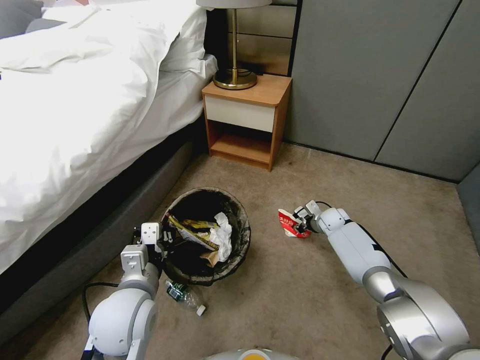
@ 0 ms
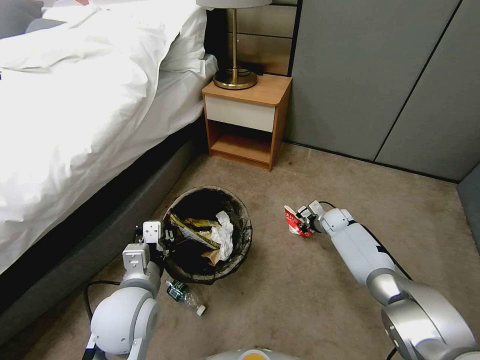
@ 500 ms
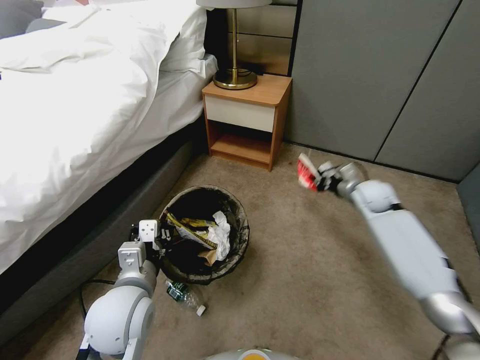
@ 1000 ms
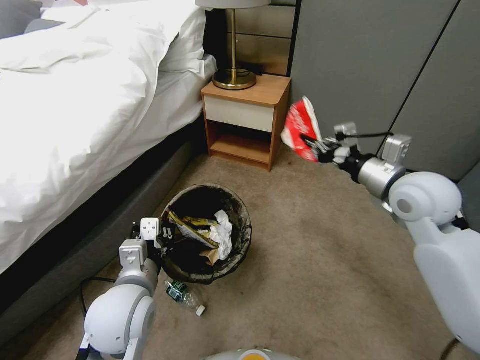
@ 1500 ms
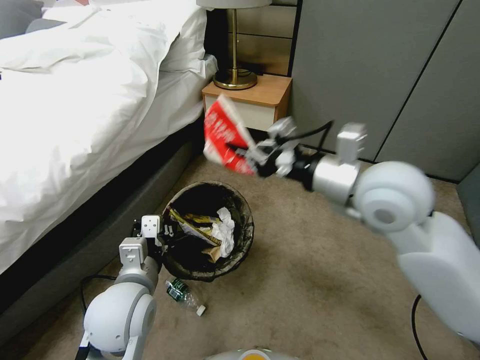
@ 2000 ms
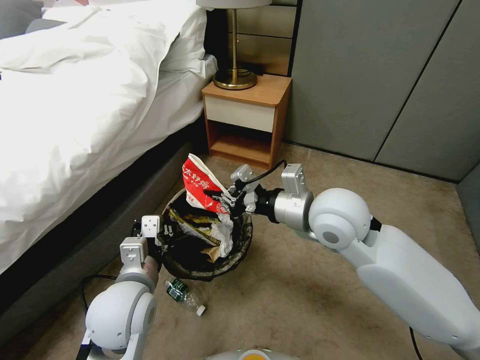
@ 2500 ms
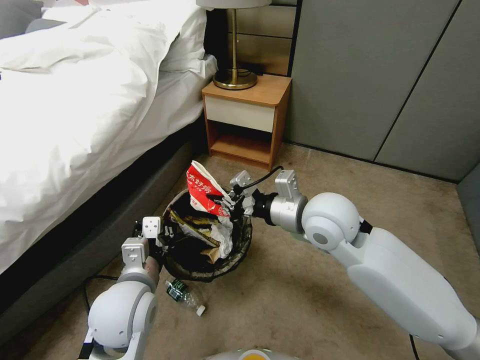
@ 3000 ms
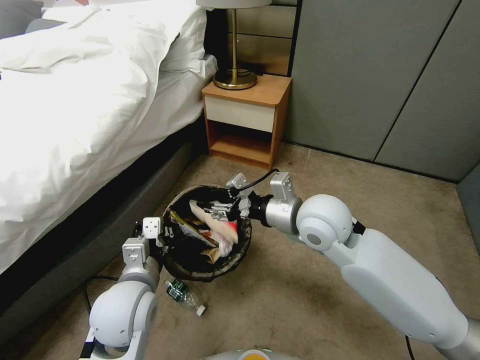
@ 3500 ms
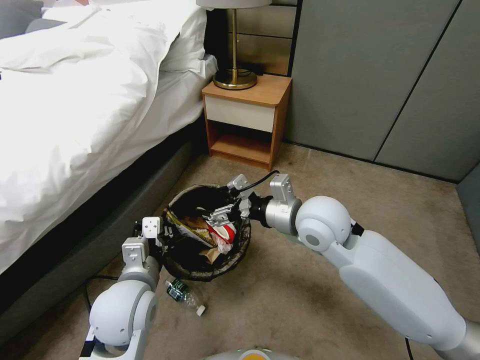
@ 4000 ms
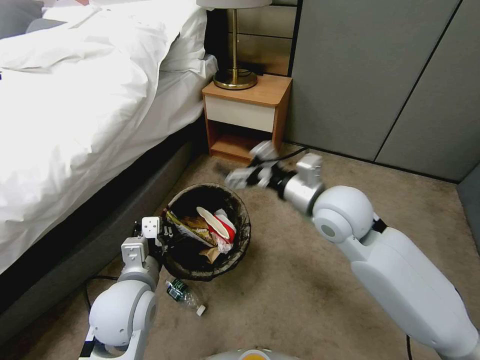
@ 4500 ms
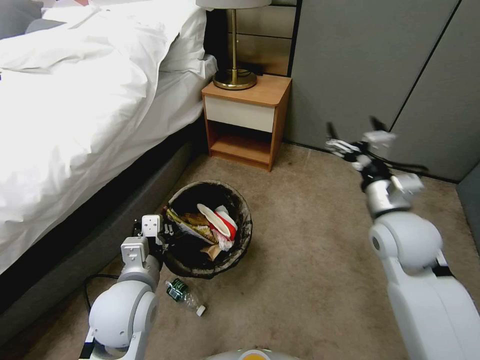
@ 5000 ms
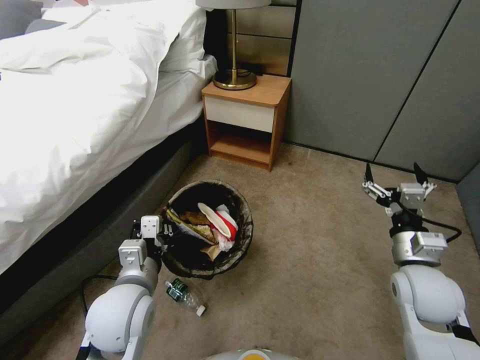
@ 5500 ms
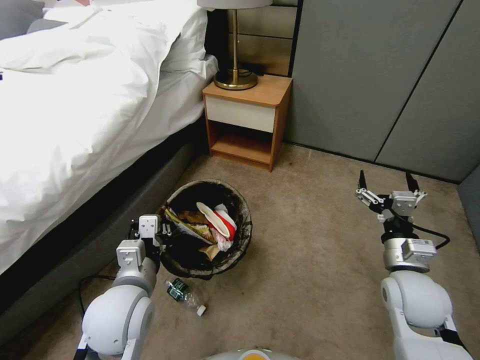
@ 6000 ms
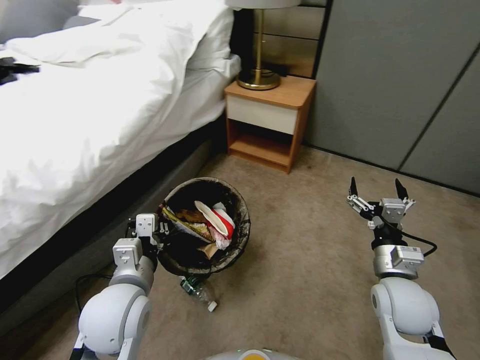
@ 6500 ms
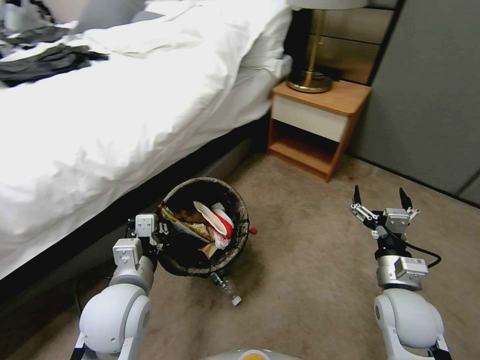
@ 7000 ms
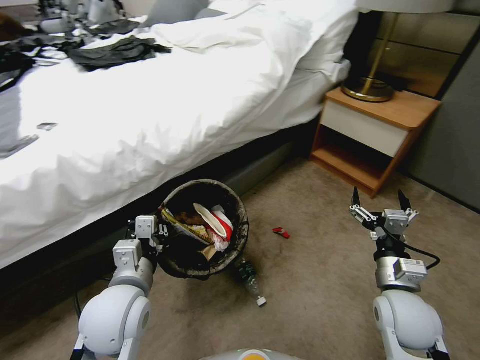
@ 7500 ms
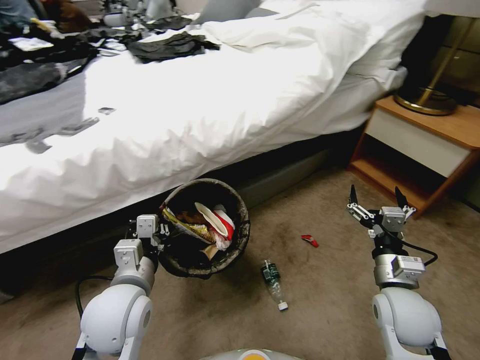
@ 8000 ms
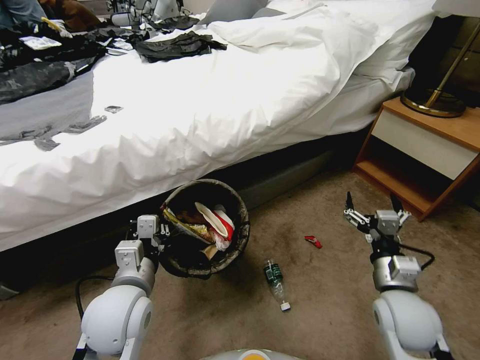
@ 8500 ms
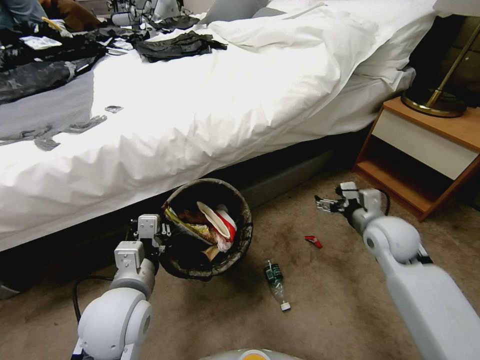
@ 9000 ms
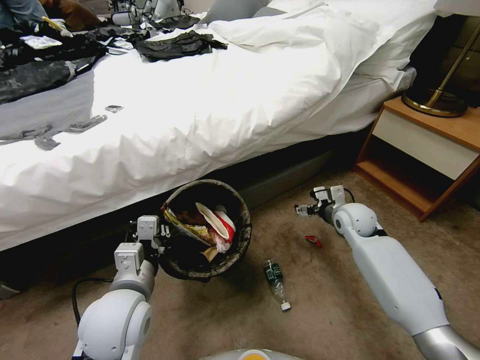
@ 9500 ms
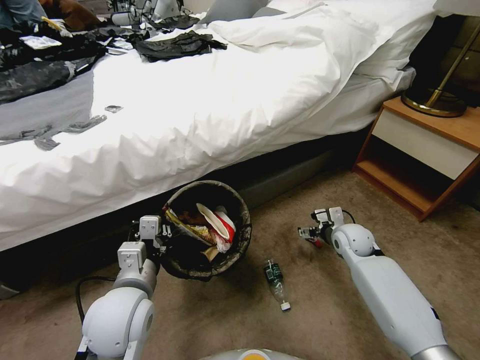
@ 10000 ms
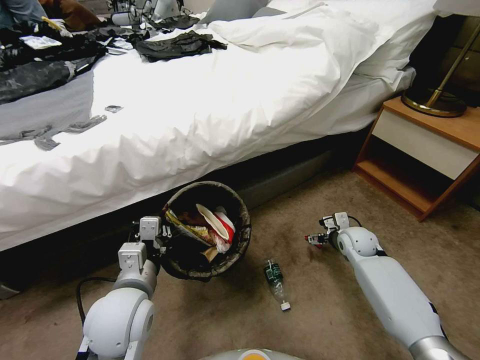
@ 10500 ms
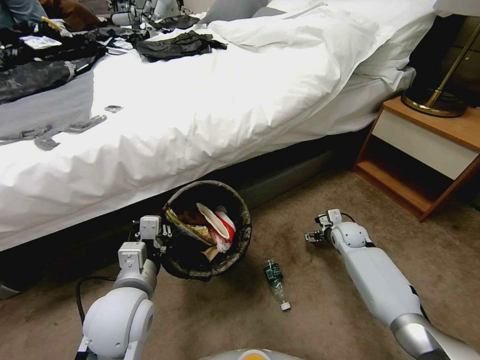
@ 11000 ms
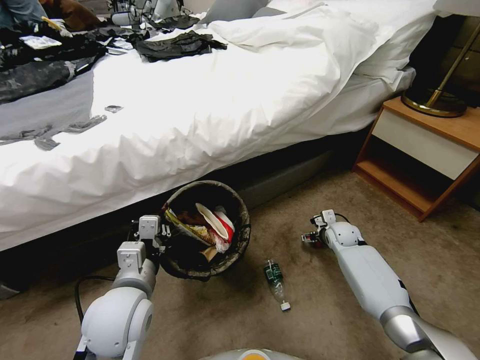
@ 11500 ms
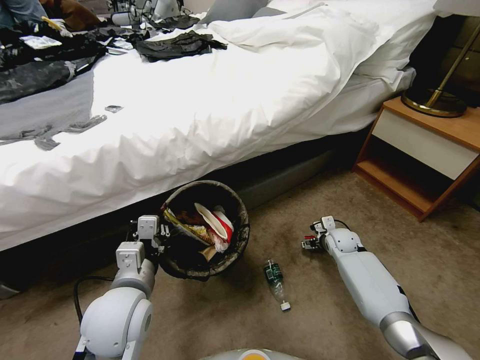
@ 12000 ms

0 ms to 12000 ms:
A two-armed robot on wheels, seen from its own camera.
Task of the whole recording: Pick up the trash bin, then pick up the garbage from the floor and place it into the trash bin.
0 ms to 2000 ms: The right gripper shifts some 50 cm upward and backward.
2000 ms to 4000 ms: The right gripper moves downward and to the left, approximately 15 cm, and opens its fingers.
4000 ms to 6000 ms: The right gripper heads to the right, downward and backward, covering roughly 25 cm.
8000 ms to 10000 ms: The right gripper heads forward, covering roughly 20 cm.
10000 ms to 12000 ms: The right gripper shifts about 10 cm downward.

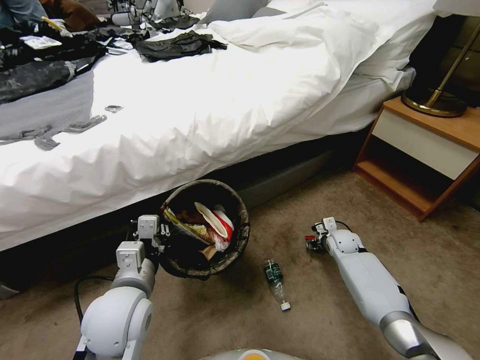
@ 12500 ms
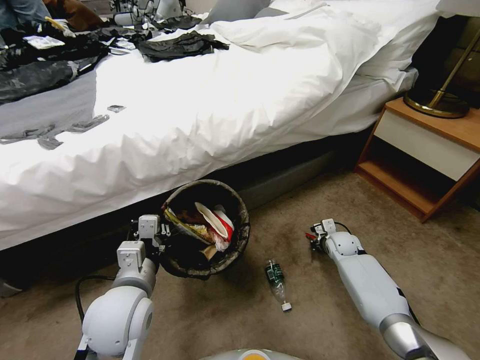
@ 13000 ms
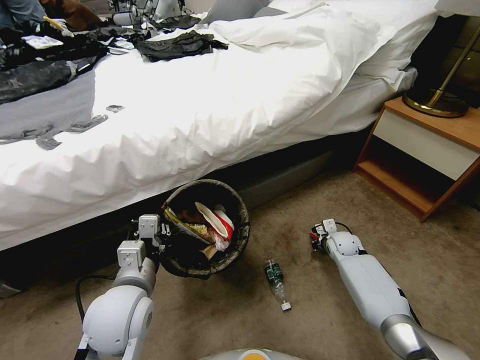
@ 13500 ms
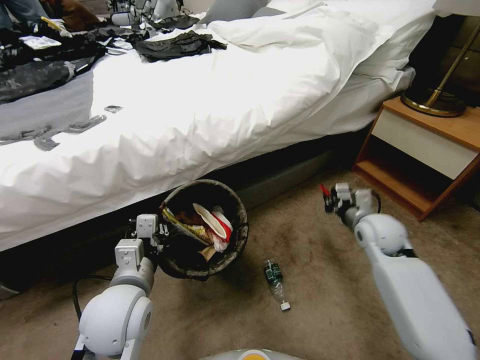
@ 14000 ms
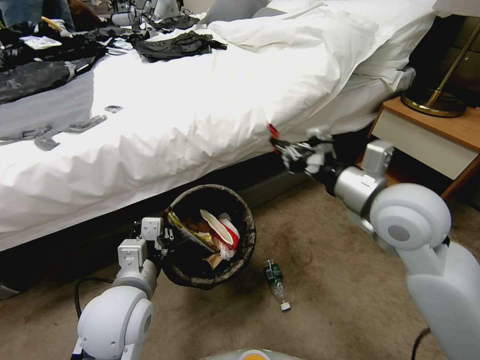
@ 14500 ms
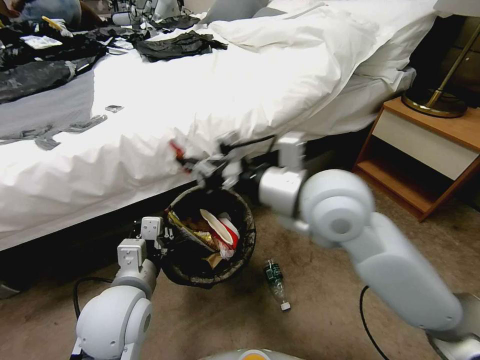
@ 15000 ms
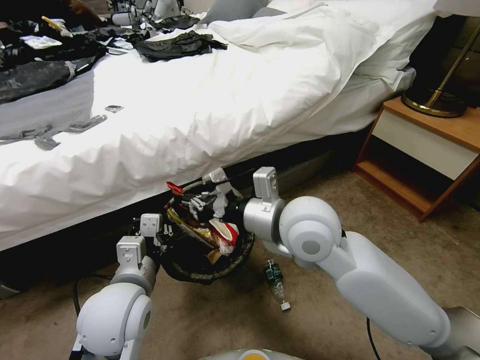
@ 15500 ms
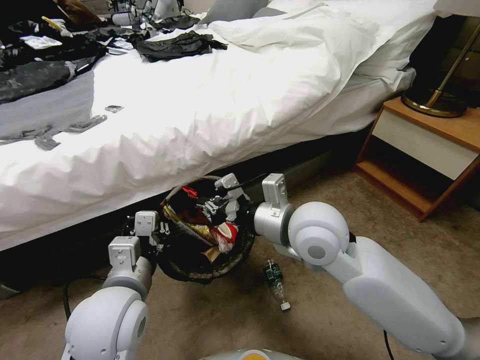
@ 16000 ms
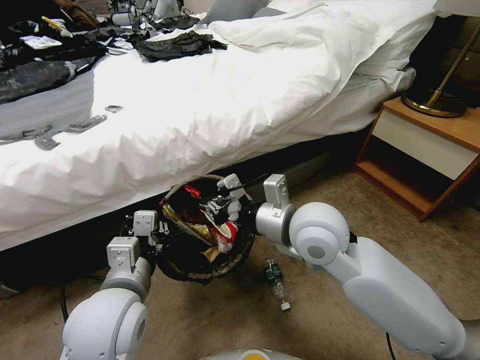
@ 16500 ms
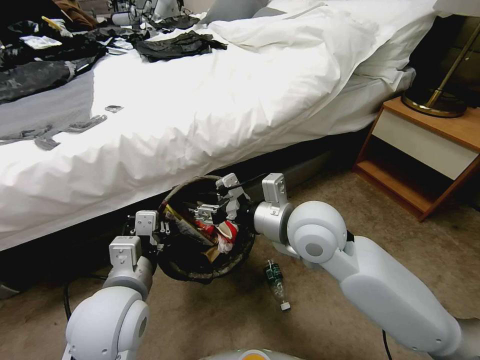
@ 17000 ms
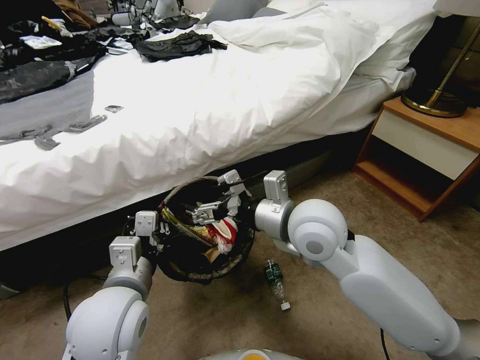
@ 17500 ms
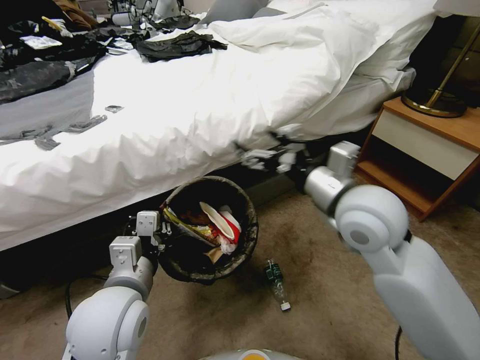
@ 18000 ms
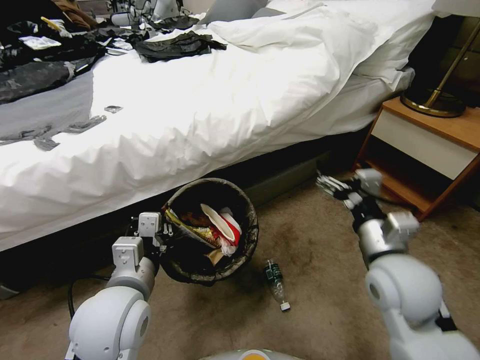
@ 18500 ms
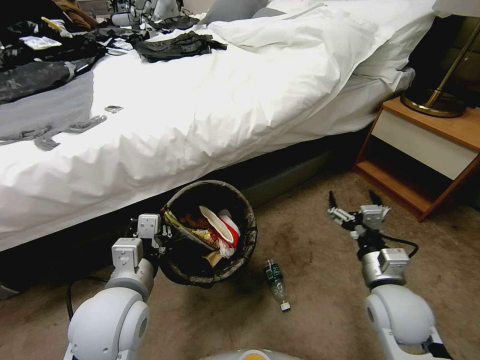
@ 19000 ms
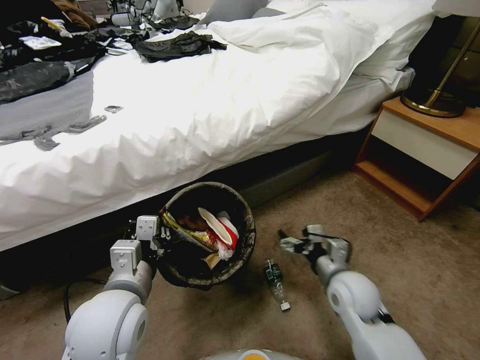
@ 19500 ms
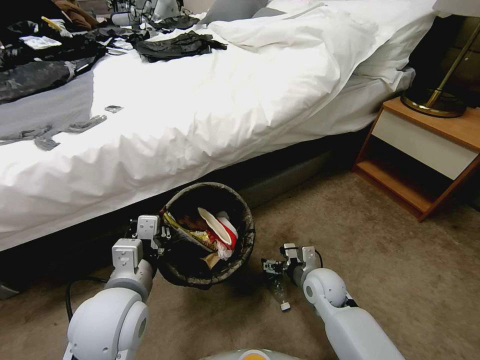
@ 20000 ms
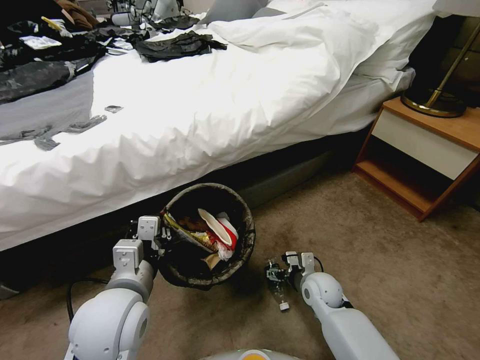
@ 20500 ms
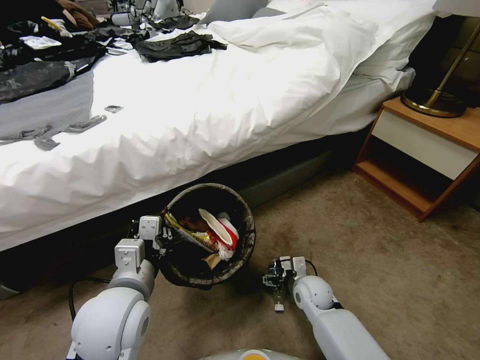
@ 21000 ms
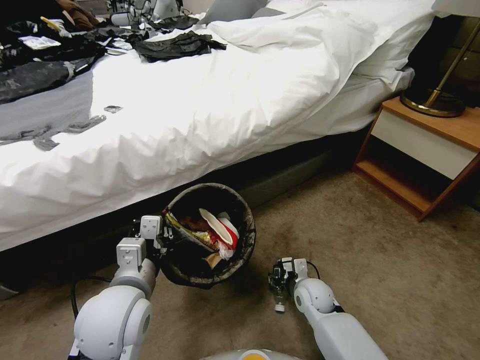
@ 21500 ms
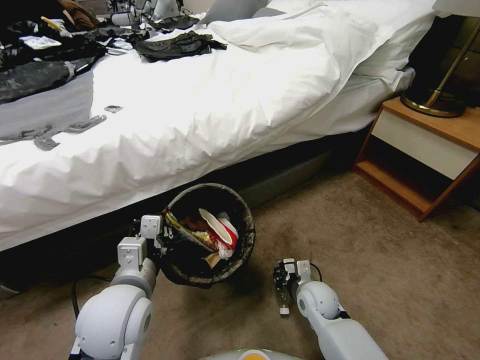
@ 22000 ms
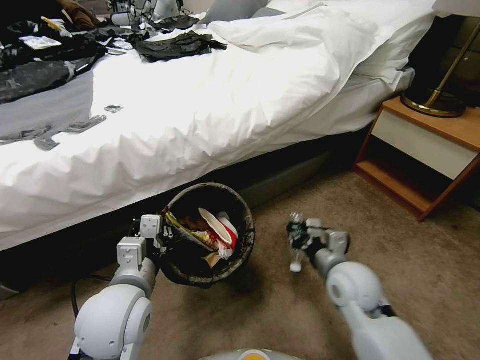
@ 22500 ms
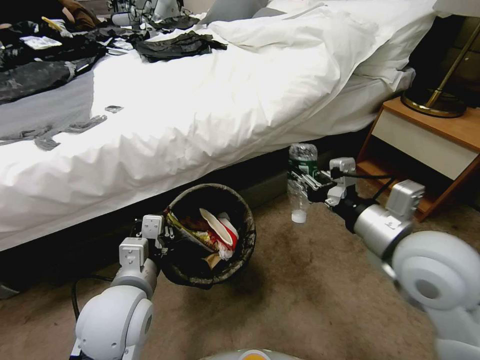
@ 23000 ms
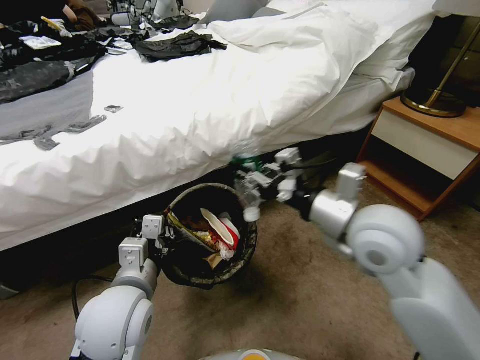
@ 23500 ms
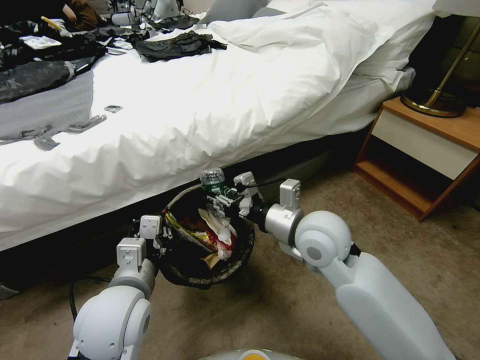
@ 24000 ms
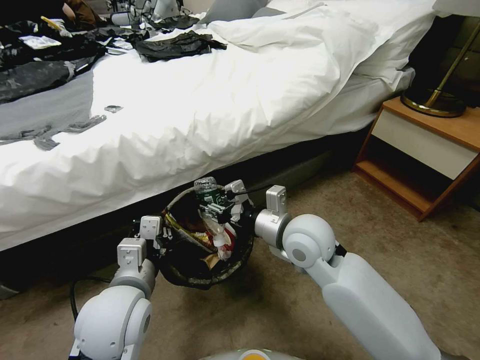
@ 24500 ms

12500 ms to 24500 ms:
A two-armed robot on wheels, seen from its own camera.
Task of the whole recording: Pick up the trash bin, then pick up the garbage from the floor and place it into the trash bin.
12500 ms to 14500 ms: The right gripper moves upward, roughly 40 cm, and closes.
14500 ms to 16500 ms: The right gripper travels to the left and downward by about 15 cm.
16500 ms to 18500 ms: The right gripper goes roughly 15 cm to the right, downward and backward, and opens.
18500 ms to 20500 ms: The right gripper is displaced downward by about 25 cm.
20500 ms to 22500 ms: The right gripper is displaced upward by approximately 15 cm, and closes.
22500 ms to 24500 ms: The right gripper goes about 15 cm upward and to the left.

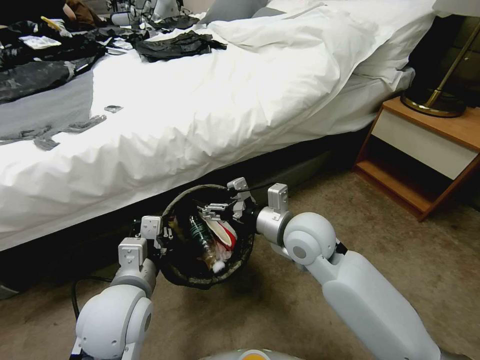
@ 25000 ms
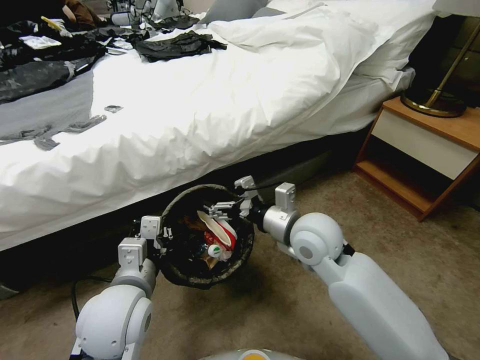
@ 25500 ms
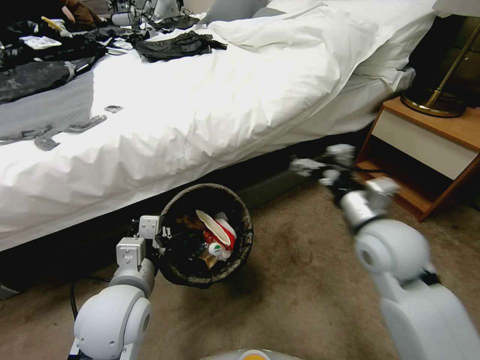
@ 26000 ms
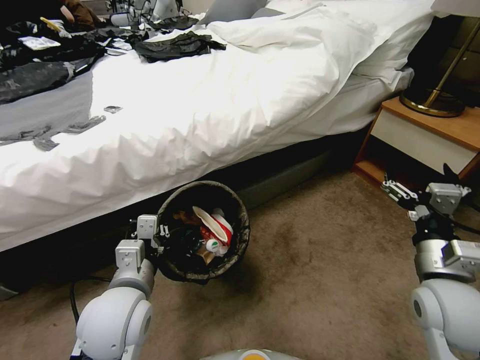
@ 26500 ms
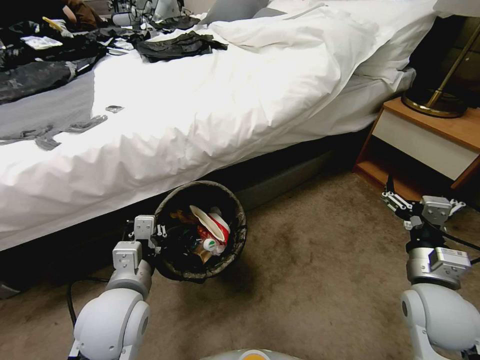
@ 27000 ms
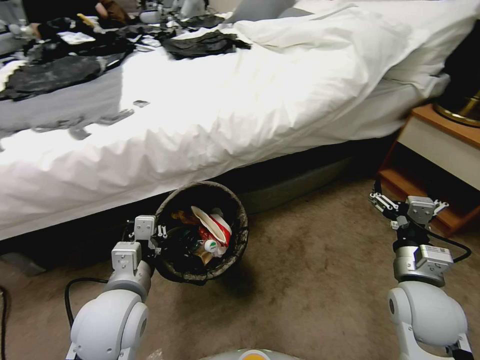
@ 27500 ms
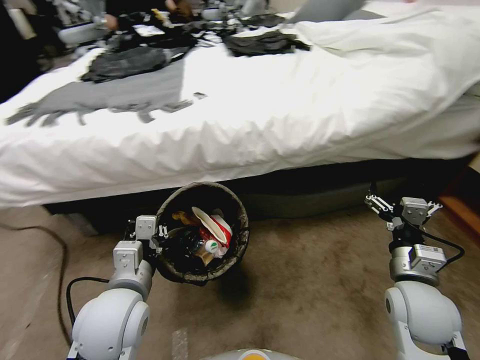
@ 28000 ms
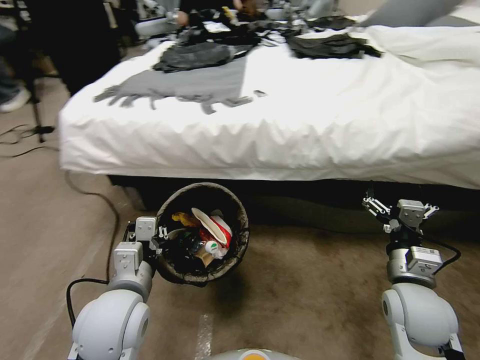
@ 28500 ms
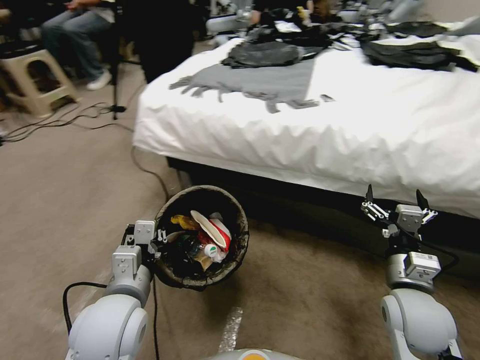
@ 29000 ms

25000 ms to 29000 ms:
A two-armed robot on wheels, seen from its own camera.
Task of the whole recording: Pick up the trash bin, then pick up the garbage from the floor and place it into the trash bin.
25000 ms to 27000 ms: The right gripper is displaced to the right and backward by approximately 25 cm.
